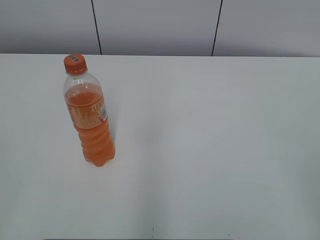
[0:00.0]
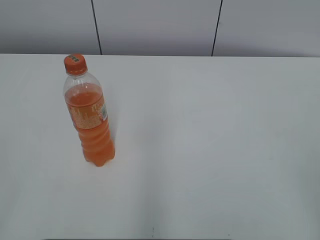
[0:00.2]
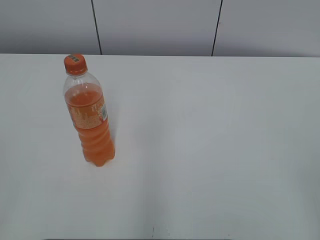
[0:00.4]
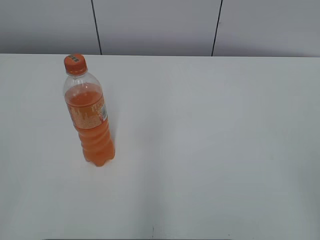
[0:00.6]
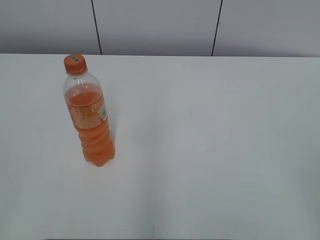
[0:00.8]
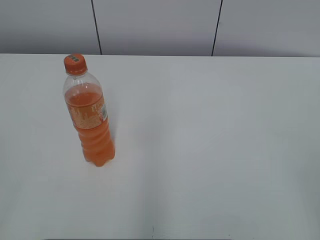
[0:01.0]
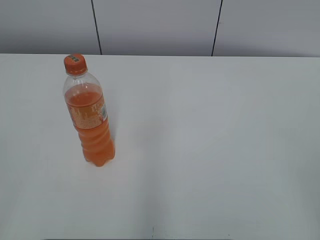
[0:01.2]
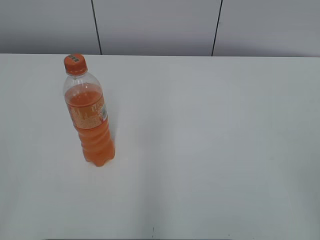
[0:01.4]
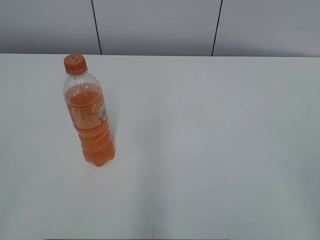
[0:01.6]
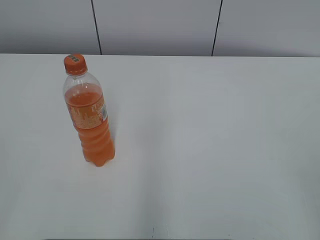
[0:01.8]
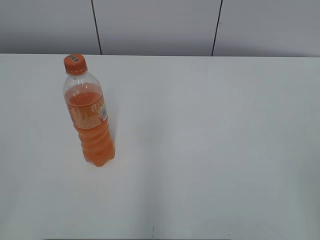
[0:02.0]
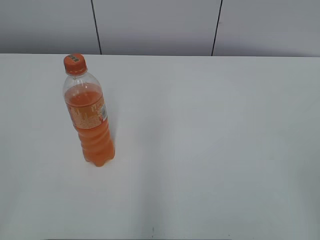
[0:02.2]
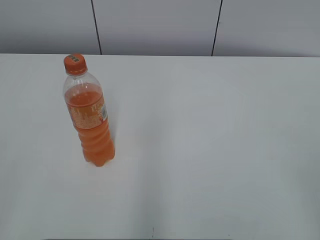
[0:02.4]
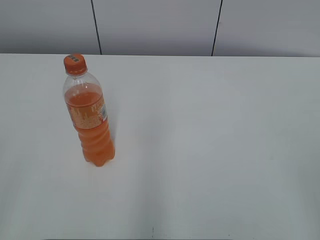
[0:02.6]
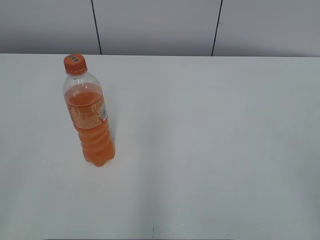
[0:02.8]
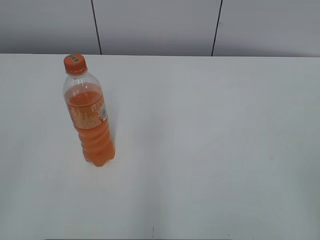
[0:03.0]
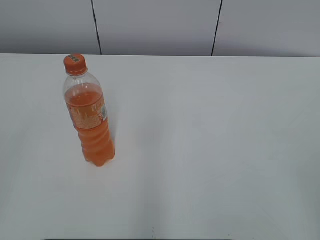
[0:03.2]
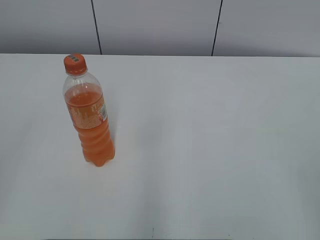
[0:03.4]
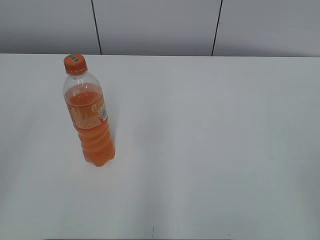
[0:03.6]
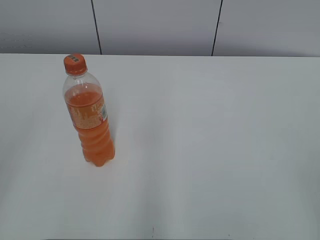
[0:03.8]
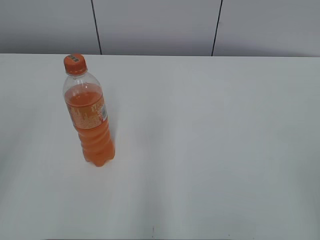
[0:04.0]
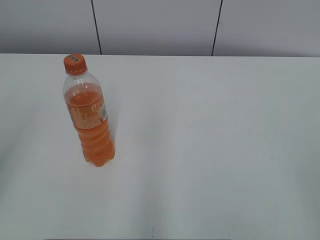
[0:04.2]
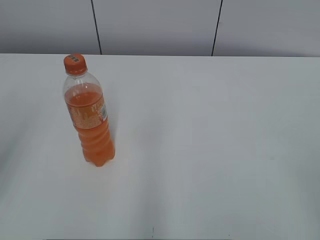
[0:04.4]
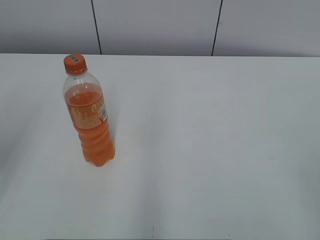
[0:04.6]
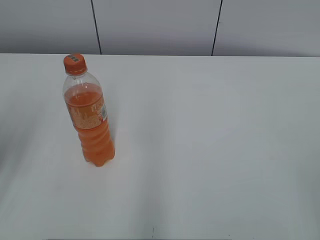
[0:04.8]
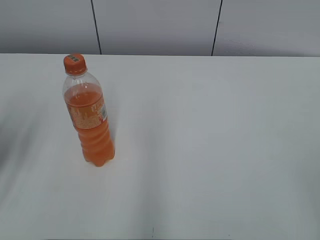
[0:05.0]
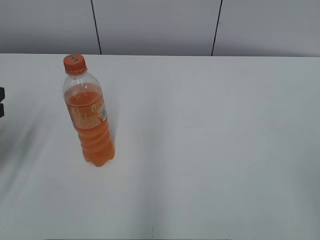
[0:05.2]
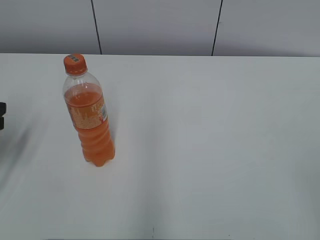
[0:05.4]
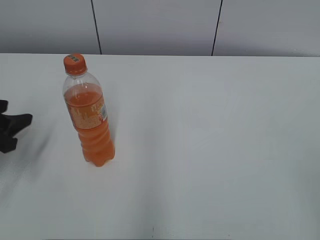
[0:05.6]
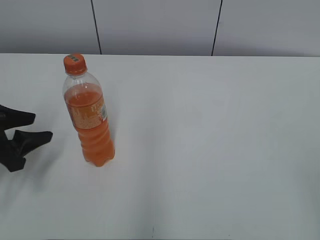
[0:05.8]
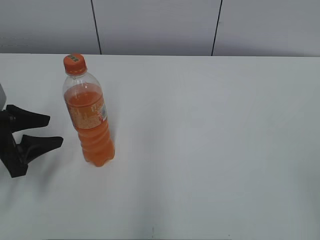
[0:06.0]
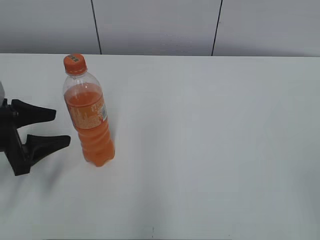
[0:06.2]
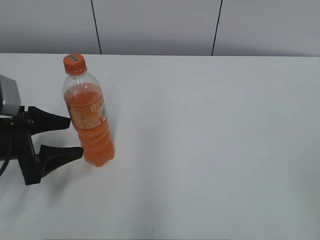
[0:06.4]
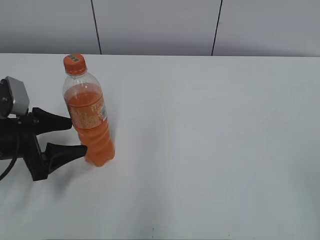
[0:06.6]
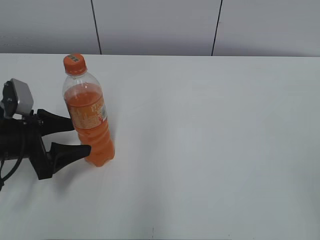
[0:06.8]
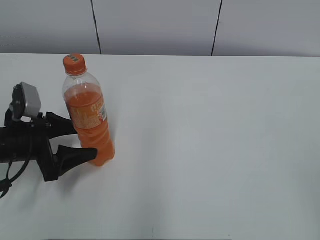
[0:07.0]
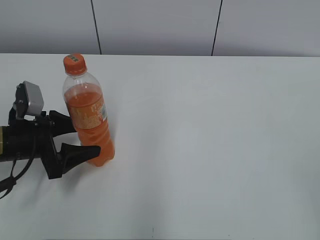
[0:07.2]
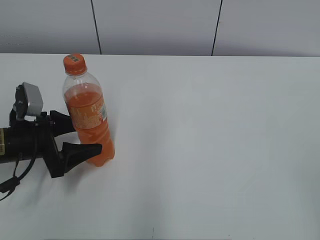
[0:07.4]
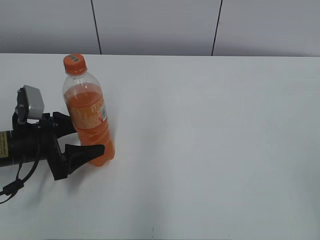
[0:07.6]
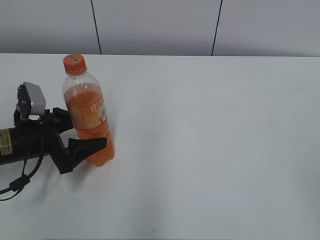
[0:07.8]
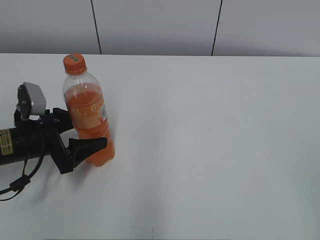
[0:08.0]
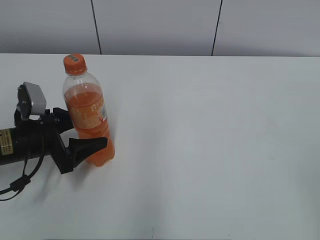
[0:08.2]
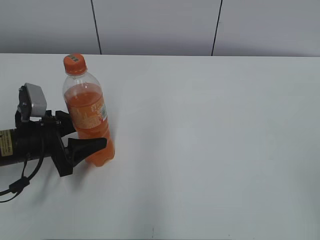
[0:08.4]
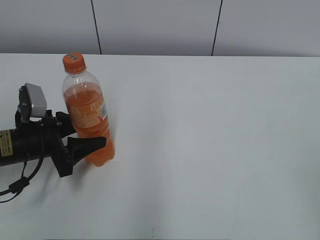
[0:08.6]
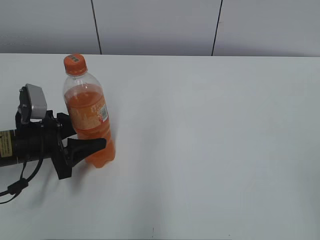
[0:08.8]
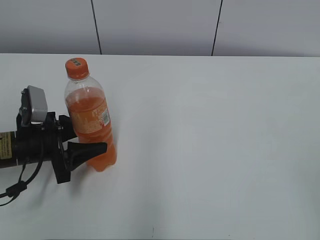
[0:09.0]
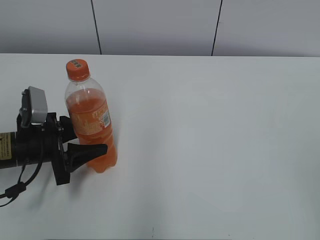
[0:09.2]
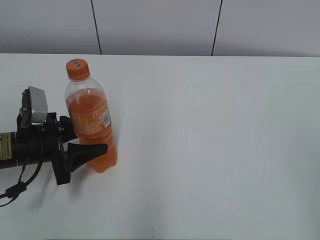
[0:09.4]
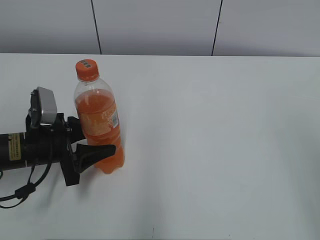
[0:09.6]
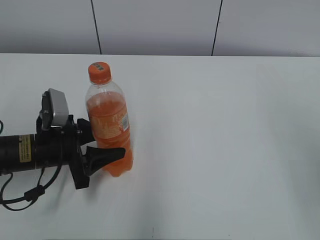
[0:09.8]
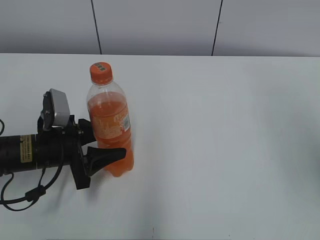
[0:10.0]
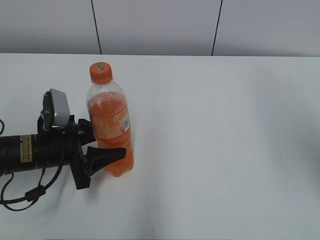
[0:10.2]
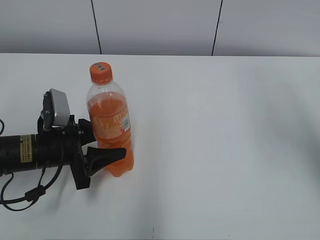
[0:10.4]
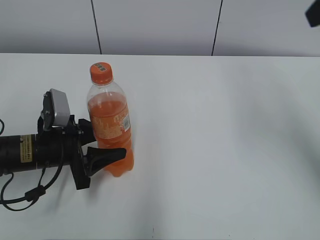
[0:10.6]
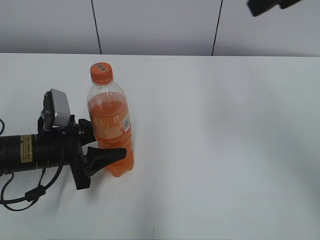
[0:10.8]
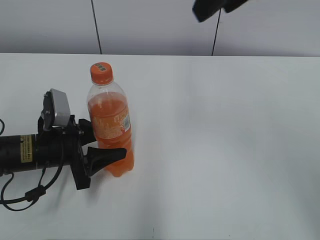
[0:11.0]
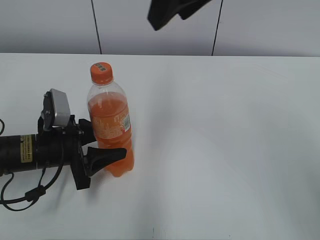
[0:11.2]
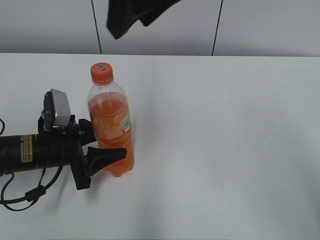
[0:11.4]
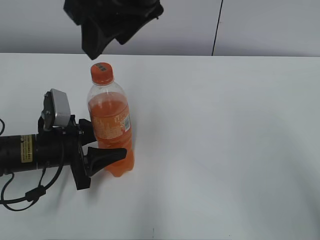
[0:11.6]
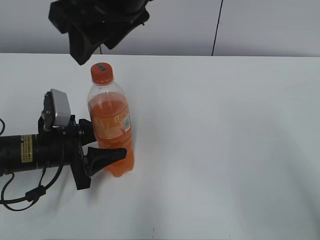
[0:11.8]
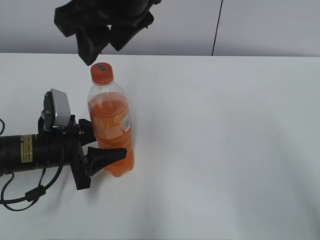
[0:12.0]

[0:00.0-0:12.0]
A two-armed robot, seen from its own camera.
Step, 0:00.0 to 0:08.6: Grab the Mirinda with the left hand.
Step, 0:08.8 to 0:09.8: Move the Mirinda from left to right.
0:04.4 to 0:06.0: The left gripper goes about 20 cm downward and forward.
0:06.0 to 0:07.6: The left gripper shifts about 5 cm to the right, and opens its fingers.
0:07.6 to 0:09.0: The left gripper closes.
0:09.0 to 0:10.4: The right gripper shifts roughly 25 cm forward and upward, and closes its fingers.
0:10.4 to 0:12.0: The right gripper goes approximately 30 cm to the left.

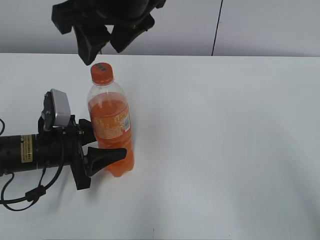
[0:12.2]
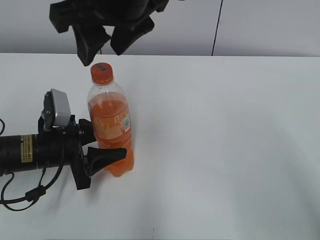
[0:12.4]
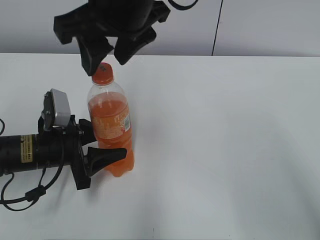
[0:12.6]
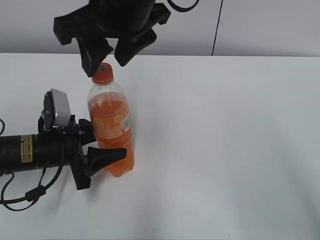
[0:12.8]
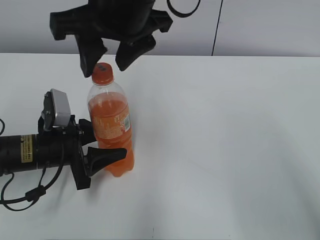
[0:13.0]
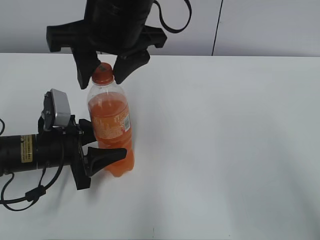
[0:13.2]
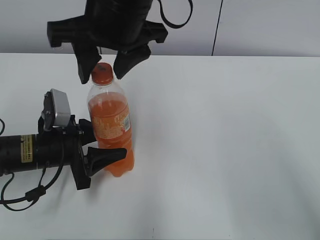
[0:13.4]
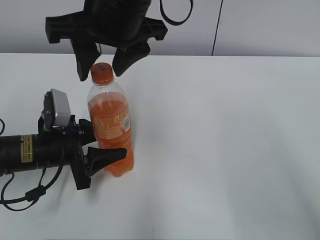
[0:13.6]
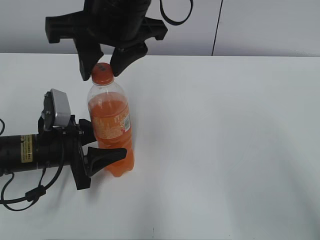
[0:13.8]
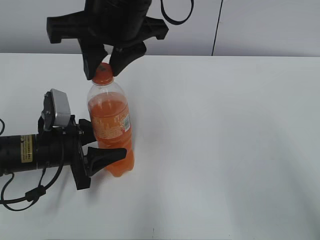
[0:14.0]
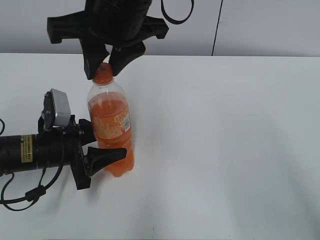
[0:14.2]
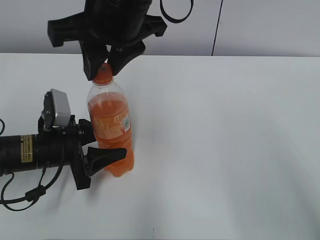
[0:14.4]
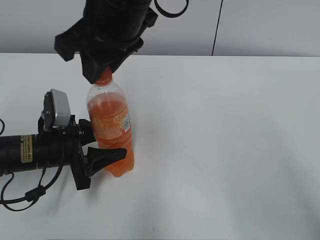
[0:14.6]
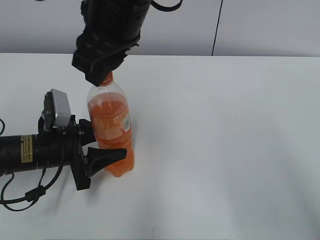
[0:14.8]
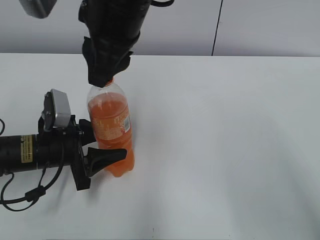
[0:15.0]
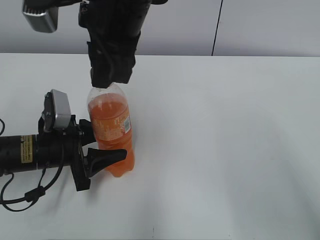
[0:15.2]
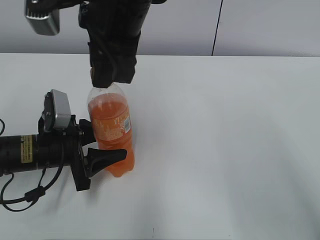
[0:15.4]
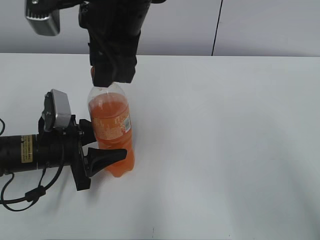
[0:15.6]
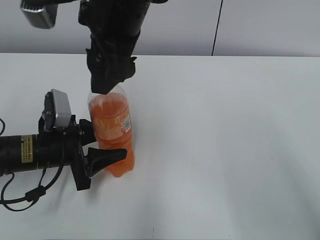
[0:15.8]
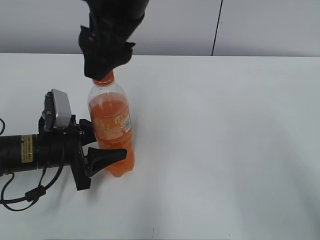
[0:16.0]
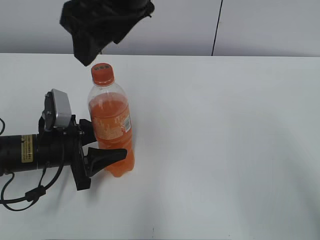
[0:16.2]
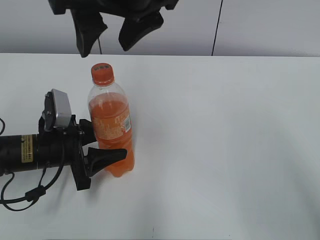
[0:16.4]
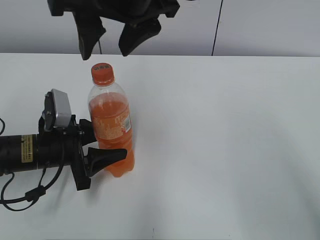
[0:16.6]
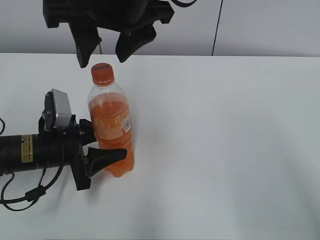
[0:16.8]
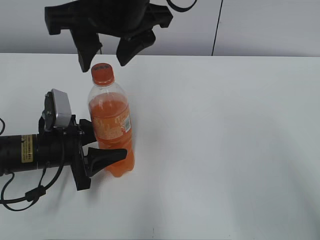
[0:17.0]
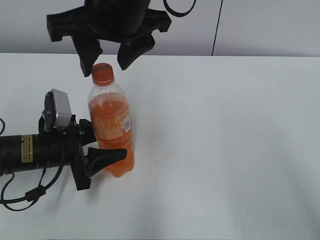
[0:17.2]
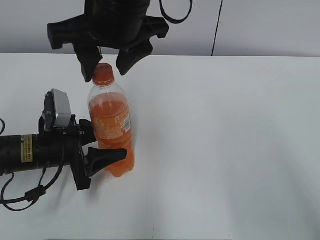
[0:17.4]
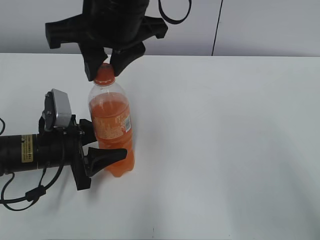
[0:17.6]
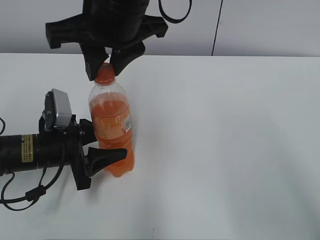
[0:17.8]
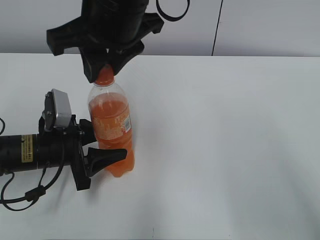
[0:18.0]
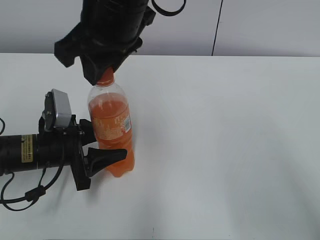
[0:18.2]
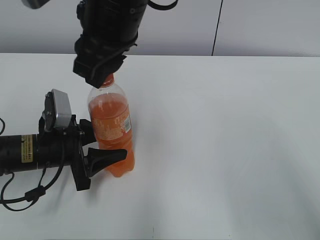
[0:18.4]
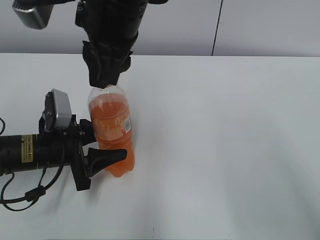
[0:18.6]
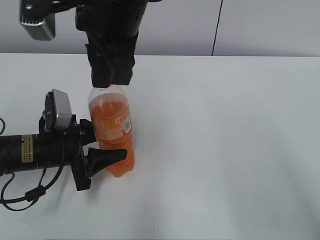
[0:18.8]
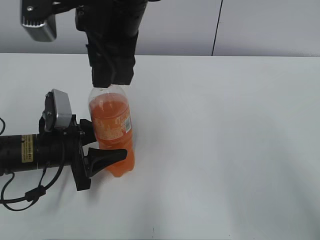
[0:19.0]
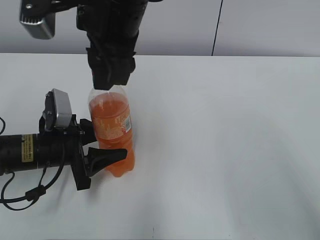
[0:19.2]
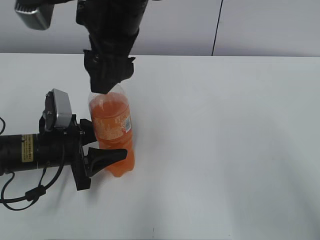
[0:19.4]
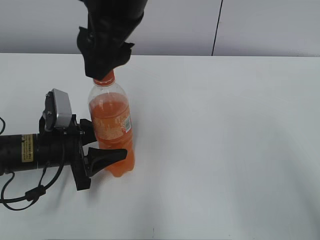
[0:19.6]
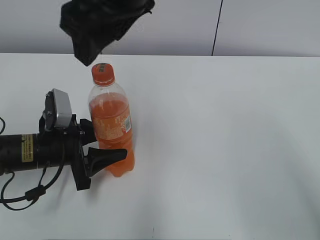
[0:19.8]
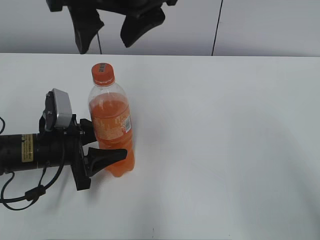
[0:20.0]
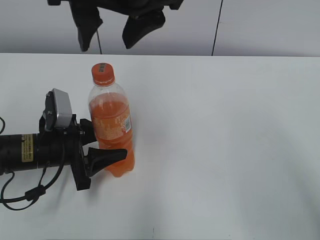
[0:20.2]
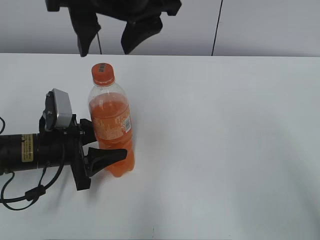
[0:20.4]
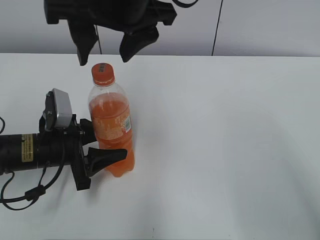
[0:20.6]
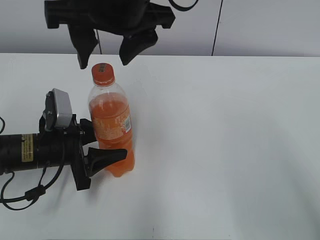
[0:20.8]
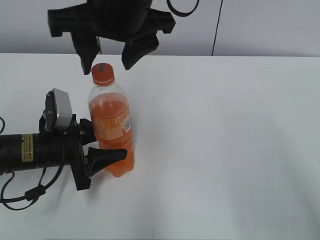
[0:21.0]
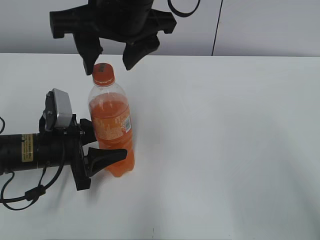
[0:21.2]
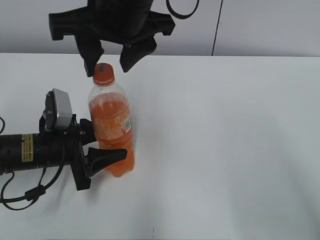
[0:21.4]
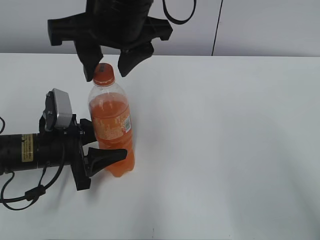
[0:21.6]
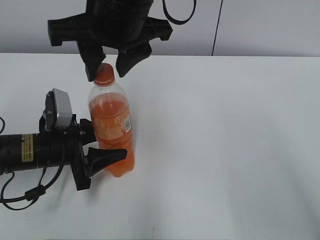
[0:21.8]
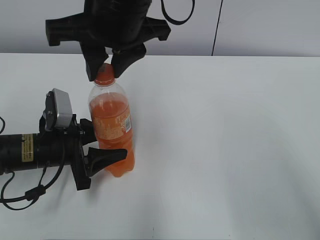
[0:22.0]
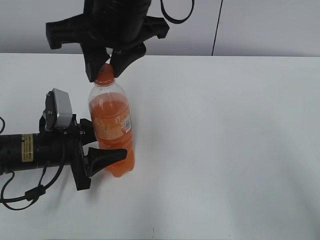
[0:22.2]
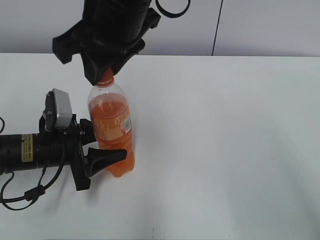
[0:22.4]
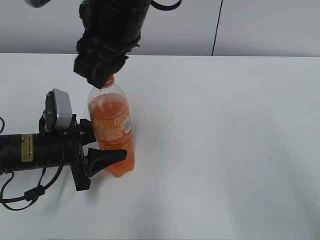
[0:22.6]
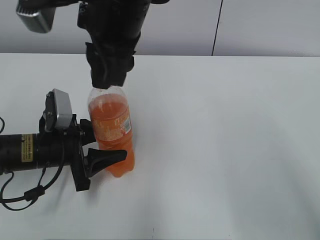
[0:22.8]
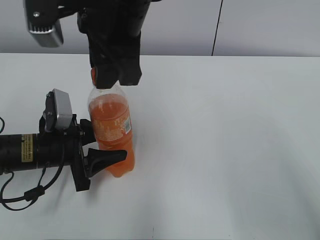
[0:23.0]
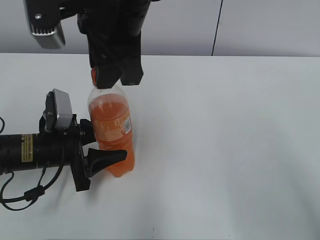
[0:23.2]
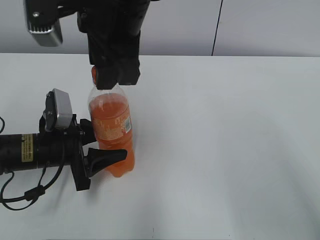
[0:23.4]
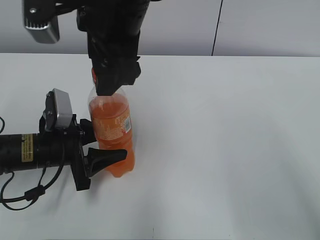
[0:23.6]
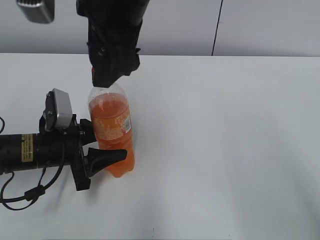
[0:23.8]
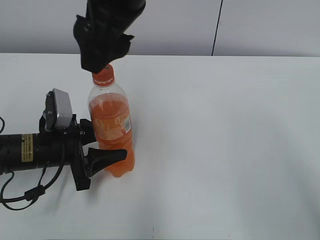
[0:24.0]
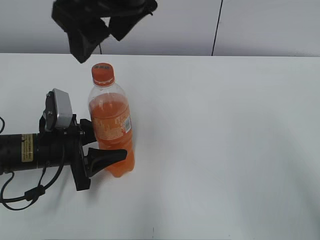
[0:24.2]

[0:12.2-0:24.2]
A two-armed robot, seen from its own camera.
0:12.2 to 0:13.8: The grippers stay close to where they were, moving slightly.
0:13.8 to 0:15.2: The right gripper closes up.
0:15.2 to 0:16.6: The right gripper opens up.
0:16.6 to 0:18.2: The right gripper closes its fingers.
0:18.2 to 0:19.8: The right gripper opens.
0:21.2 to 0:22.6: The right gripper closes its fingers.
0:22.6 to 0:24.2: The right gripper opens up.
